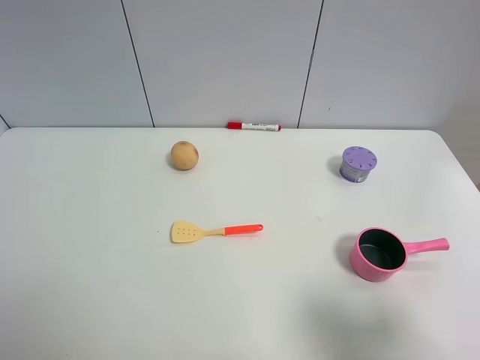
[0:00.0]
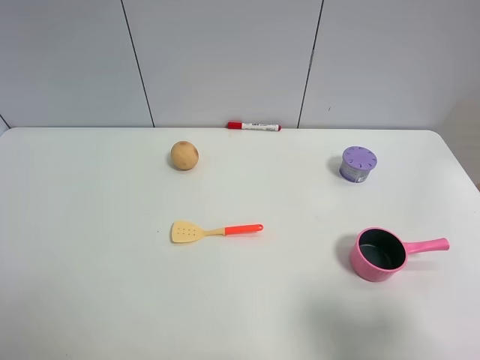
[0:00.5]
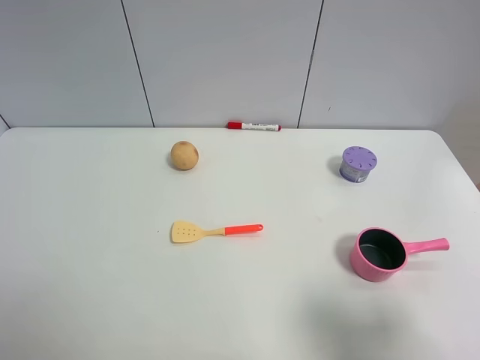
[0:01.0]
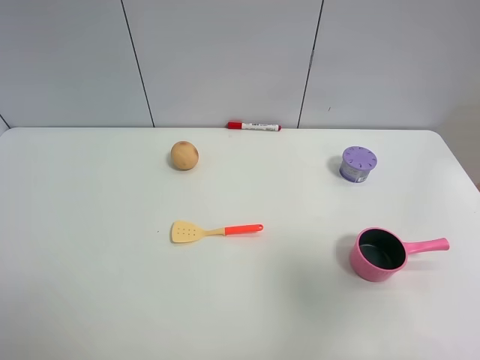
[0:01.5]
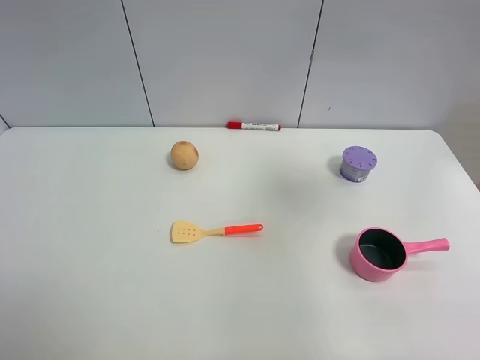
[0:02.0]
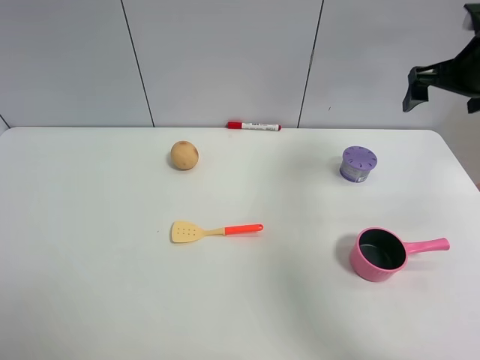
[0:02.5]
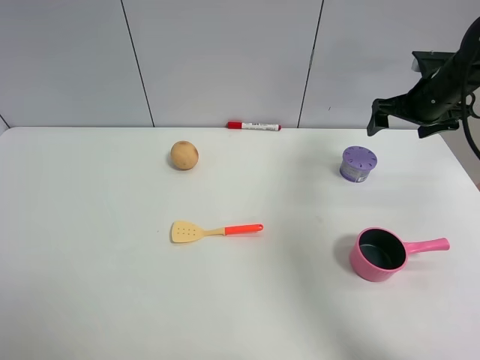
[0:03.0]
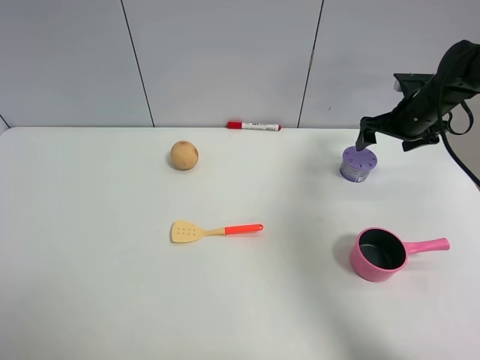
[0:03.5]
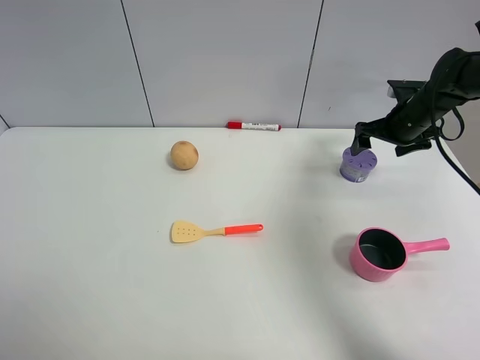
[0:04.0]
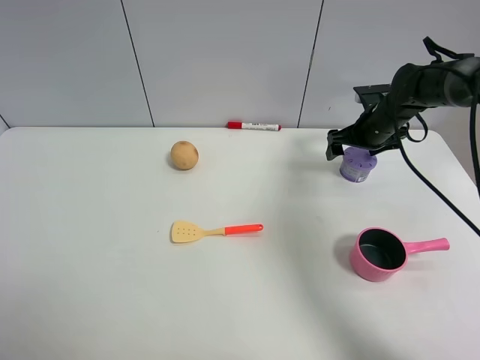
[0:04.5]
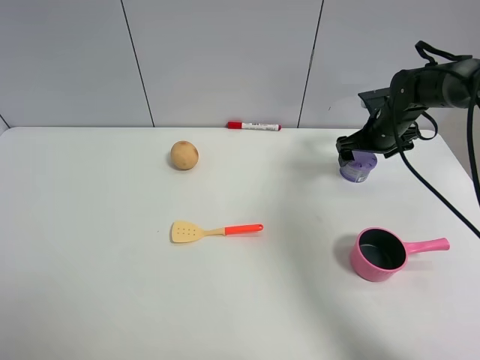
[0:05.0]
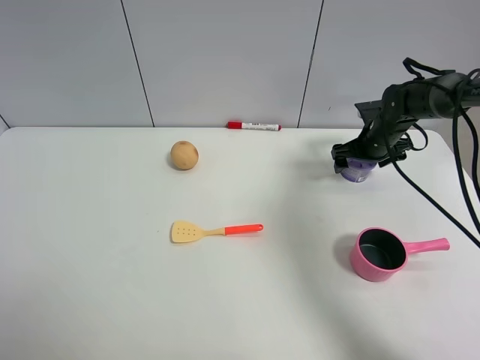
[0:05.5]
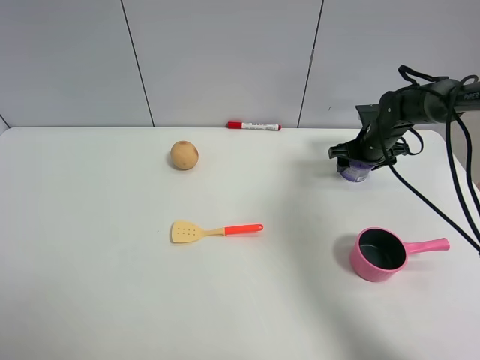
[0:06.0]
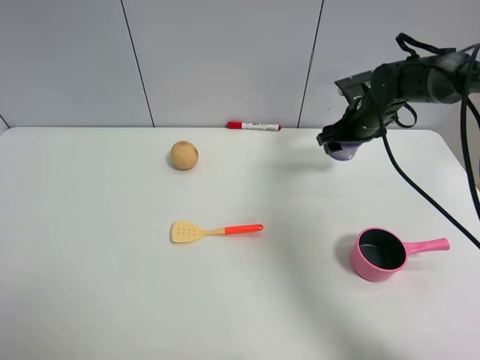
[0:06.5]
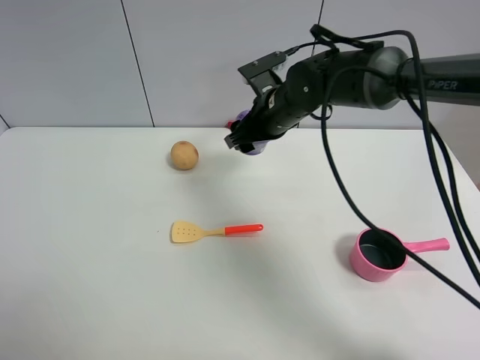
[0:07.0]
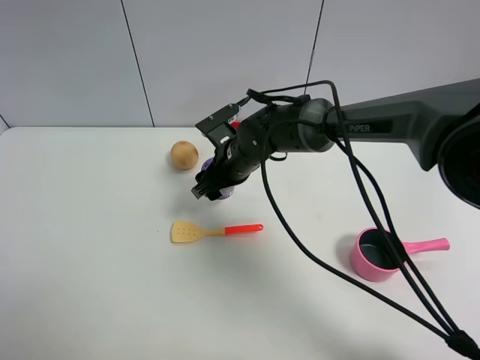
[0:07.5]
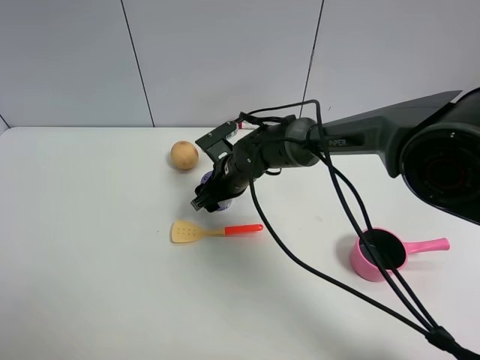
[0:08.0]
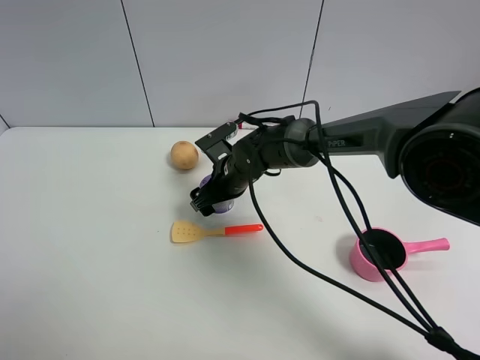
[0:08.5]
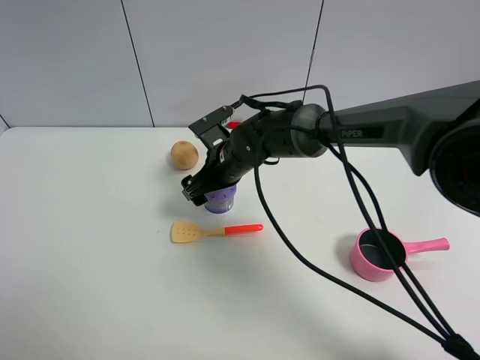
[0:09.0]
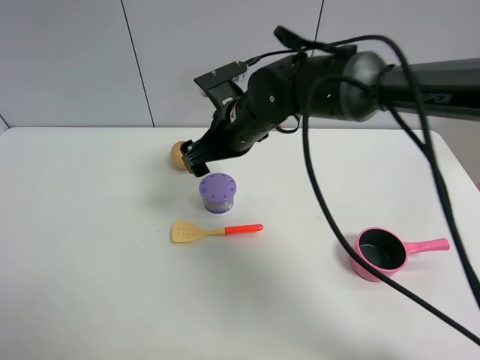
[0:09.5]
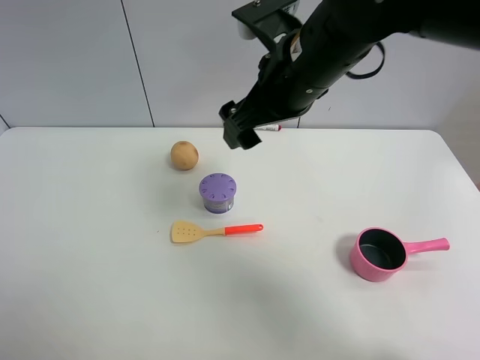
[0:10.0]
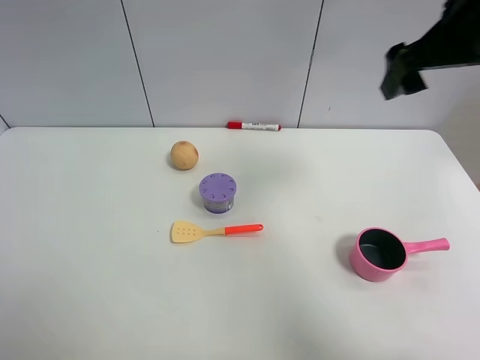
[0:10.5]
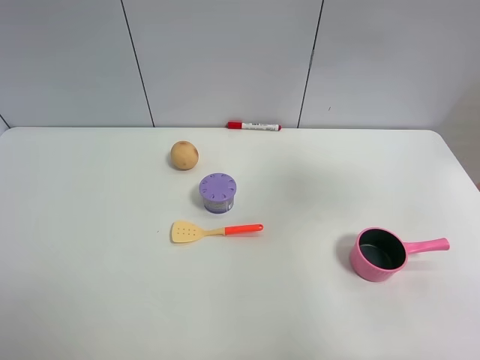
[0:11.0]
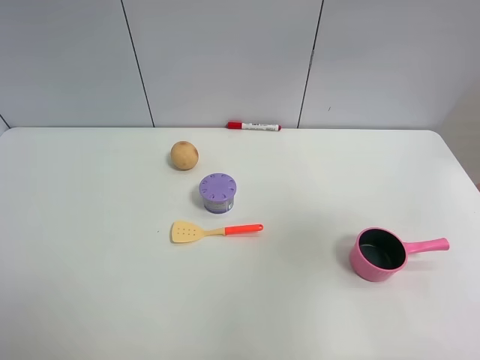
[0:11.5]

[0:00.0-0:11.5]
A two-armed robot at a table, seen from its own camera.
Task of the whole recording: the gripper move the object.
Step, 0:00.0 to 0:06.0: Grasp the Incense box with the right gripper.
Step, 0:06.5 to 0:08.5: Place the Incense box on the table with the right gripper.
0:00.0 to 0:02.0: The right gripper shifts roughly 25 cm forward and upward.
0:02.0 to 0:04.0: The right gripper moves downward and forward, about 35 cm.
0:04.0 to 0:06.0: The right gripper moves downward, roughly 5 cm, and closes.
0:06.0 to 0:07.5: The right gripper moves to the left, roughly 25 cm.
0:07.5 to 0:09.5: The right gripper shifts some 10 cm upward, and opens its fingers.
0:09.5 to 0:11.5: The right gripper moves to the right, backward and upward, about 50 cm.

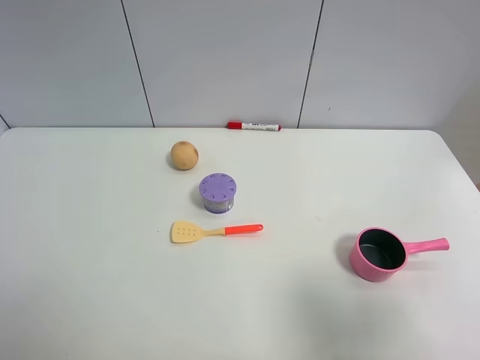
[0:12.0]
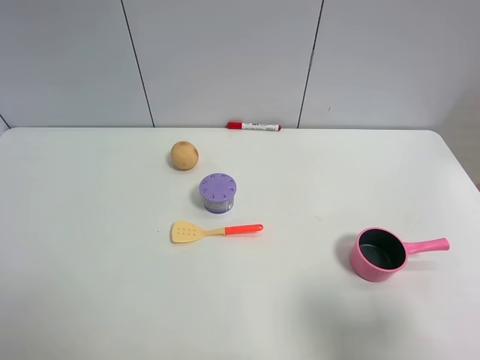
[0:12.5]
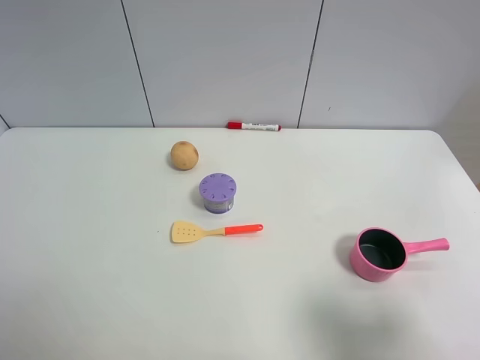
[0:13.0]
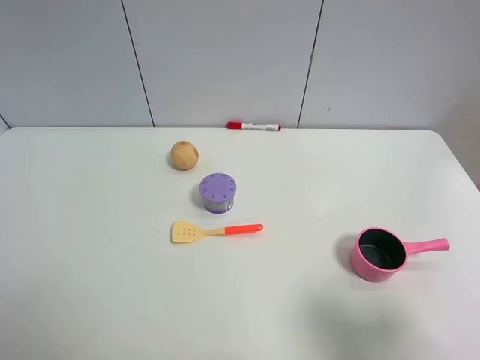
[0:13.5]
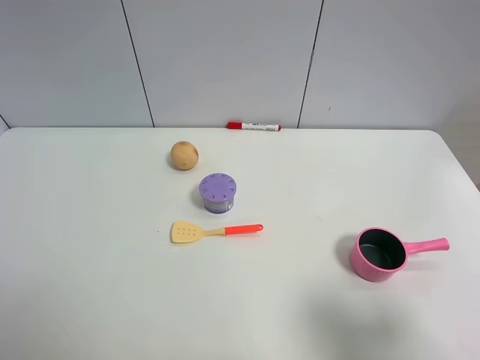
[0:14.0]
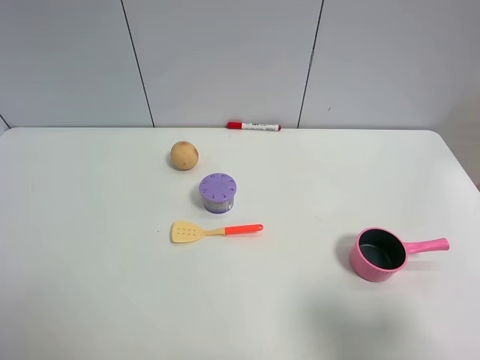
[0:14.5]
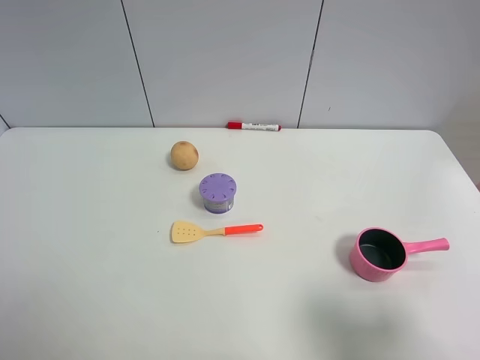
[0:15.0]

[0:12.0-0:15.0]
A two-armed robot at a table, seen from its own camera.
Task of the whole recording: the gripper move the object.
0:13.5 to 0:15.0: Both grippers stay about where they are.

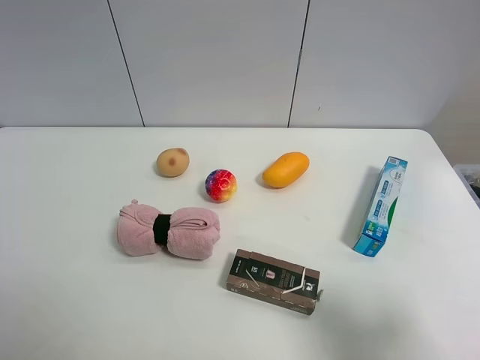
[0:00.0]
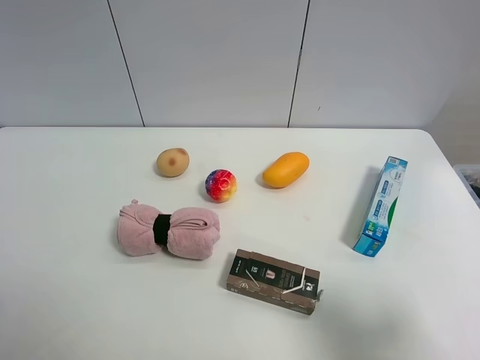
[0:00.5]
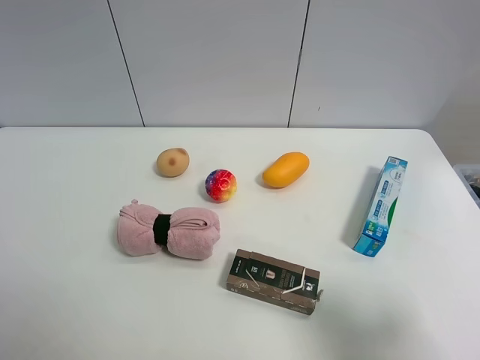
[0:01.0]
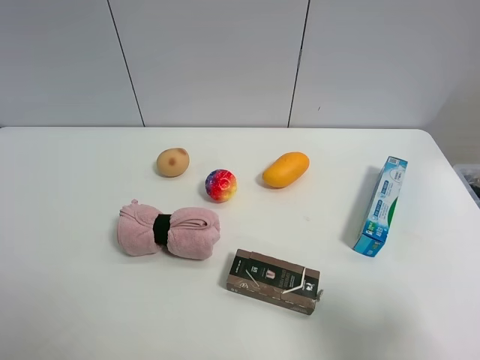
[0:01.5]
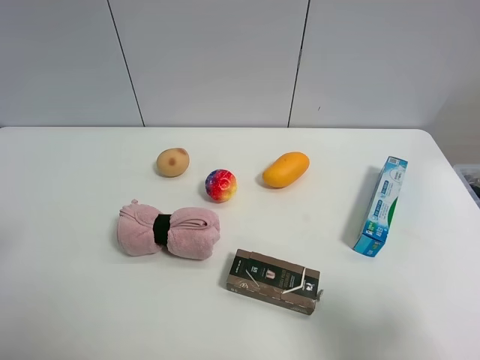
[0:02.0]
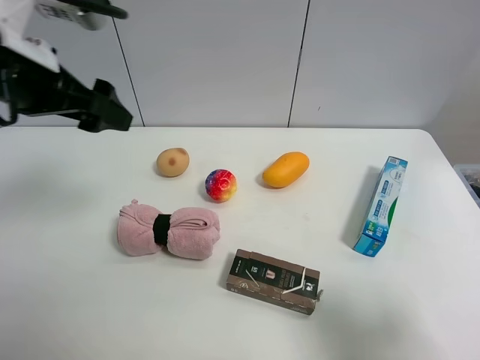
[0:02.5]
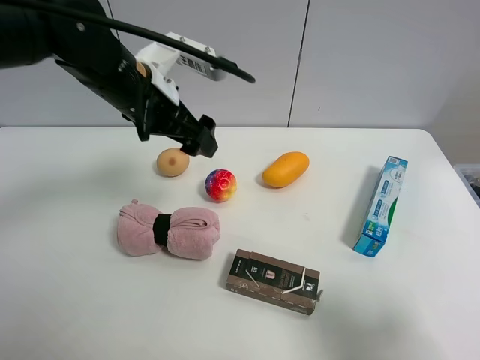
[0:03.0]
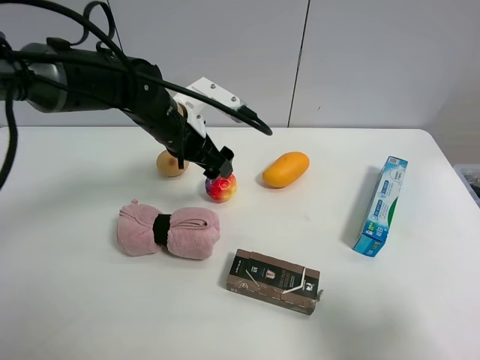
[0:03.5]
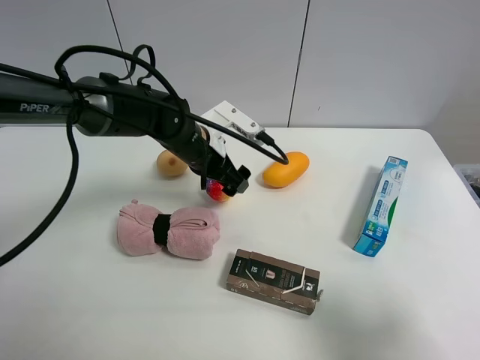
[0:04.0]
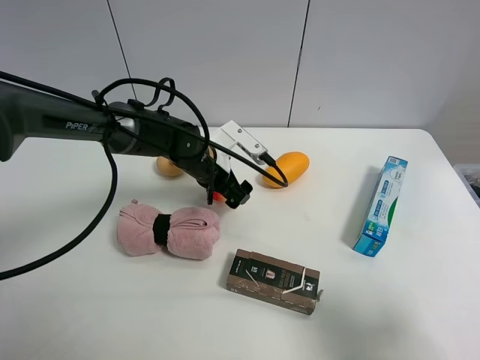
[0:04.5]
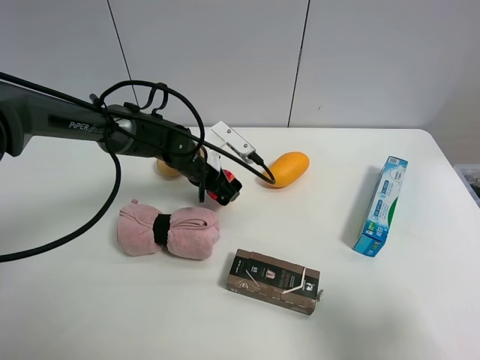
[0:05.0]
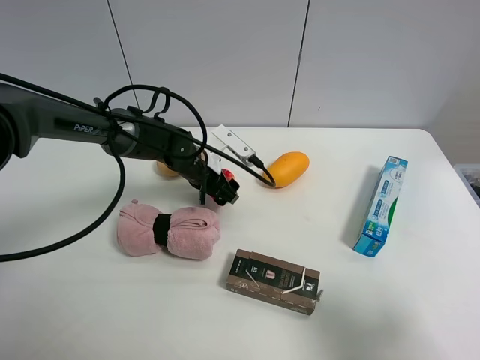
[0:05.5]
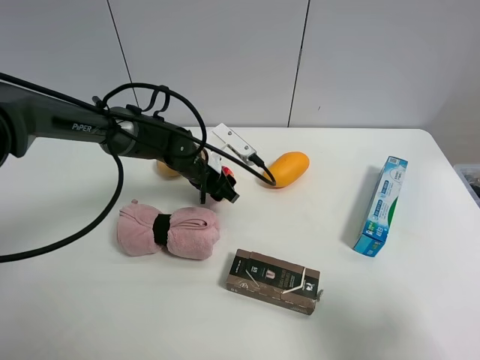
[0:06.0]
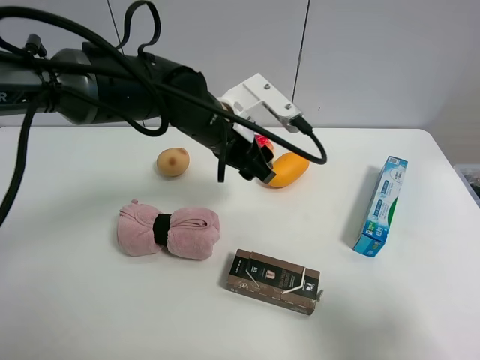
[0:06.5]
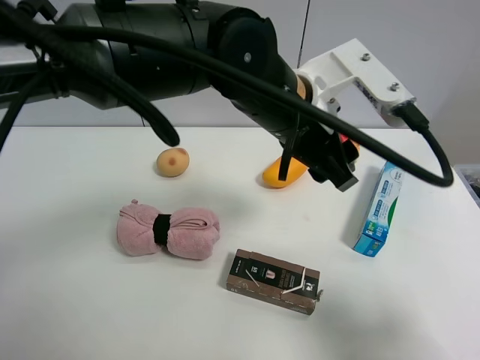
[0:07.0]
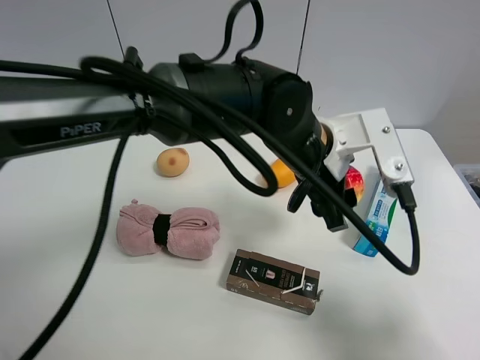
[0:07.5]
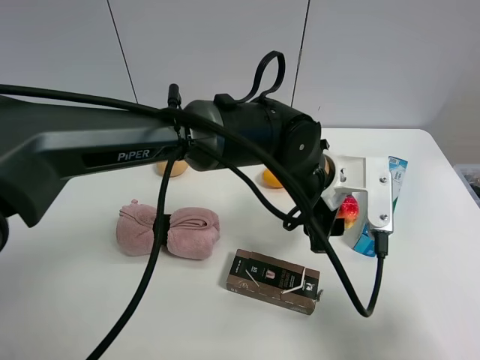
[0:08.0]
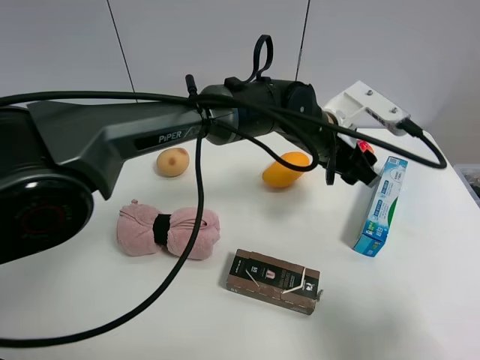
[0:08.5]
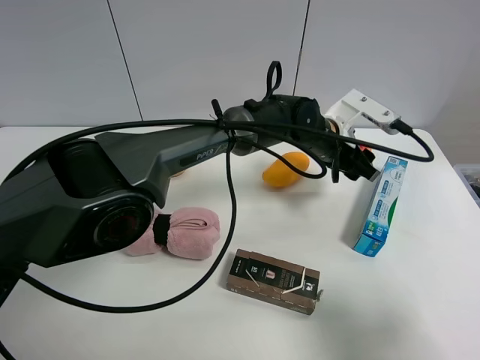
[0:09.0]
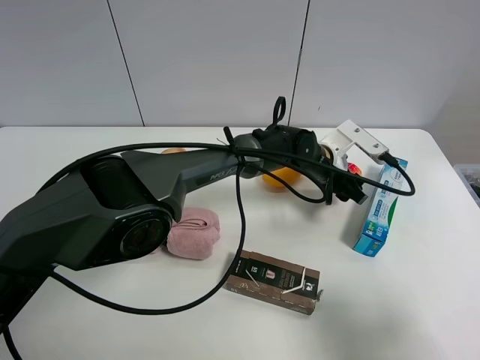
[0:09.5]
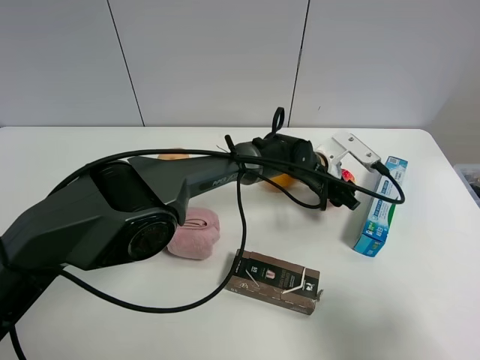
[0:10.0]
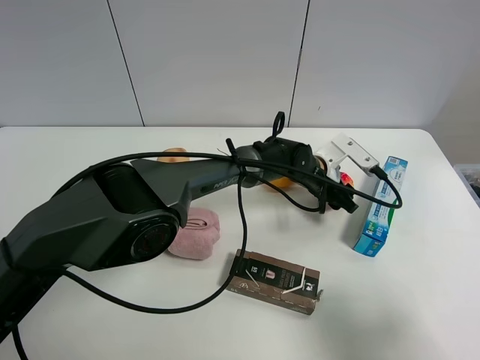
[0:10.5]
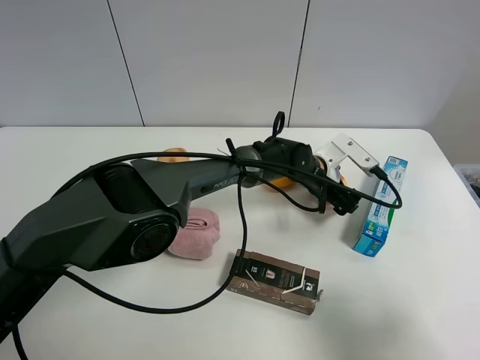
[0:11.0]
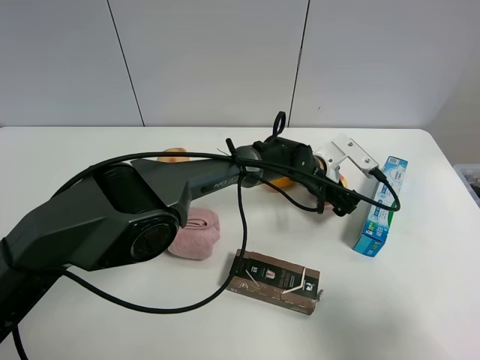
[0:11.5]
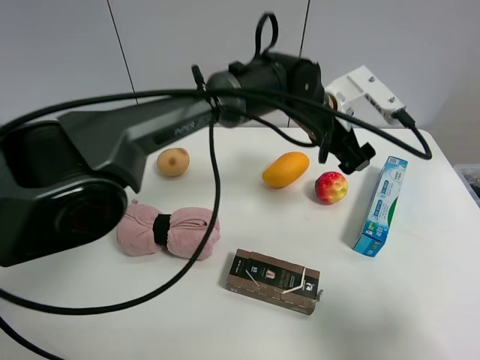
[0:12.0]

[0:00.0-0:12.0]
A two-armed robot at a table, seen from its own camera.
Task of the whole recording: the gripper move the object.
Step, 0:00.0 to 0:05.5: Grasp the colorful ball with the left gripper.
Step, 0:06.0 to 0:11.5: Place the colorful ball on the table with the left gripper.
0:02.0 to 0:04.0: The left gripper moves to the right, forward and downward, some 40 cm.
0:04.0 to 0:06.0: The left gripper shifts by approximately 5 cm, and closes.
0:06.0 to 0:08.0: The left gripper goes approximately 20 cm to the right, backward and upward.
0:08.0 to 0:10.0: The left gripper goes about 15 cm forward and downward.
0:10.0 to 0:12.0: The left gripper shifts approximately 15 cm upward, and opens.
